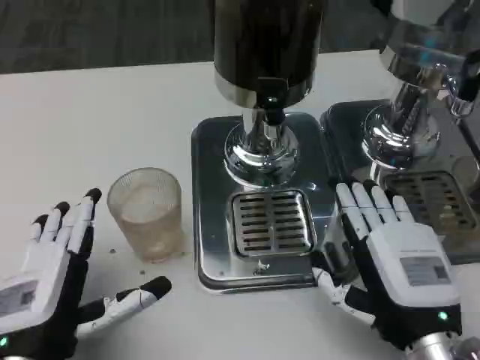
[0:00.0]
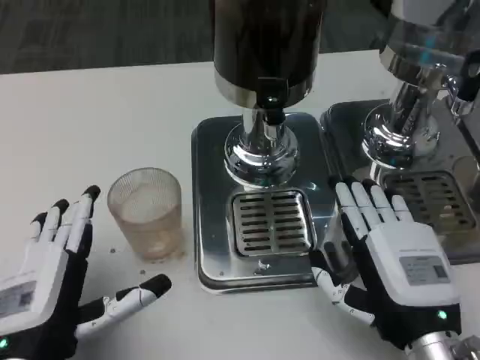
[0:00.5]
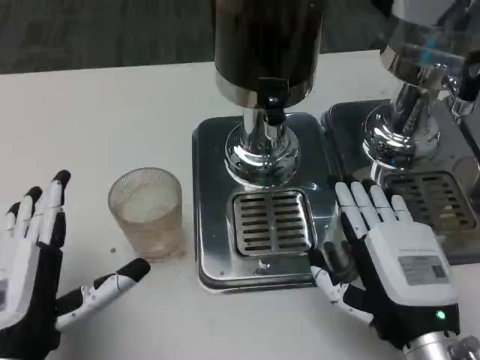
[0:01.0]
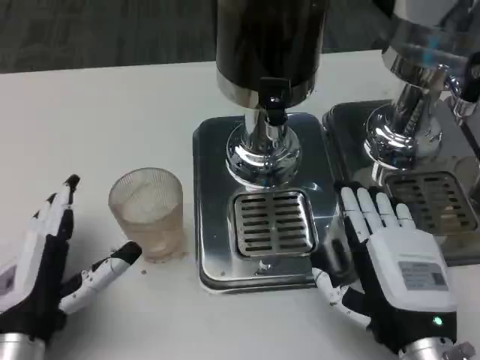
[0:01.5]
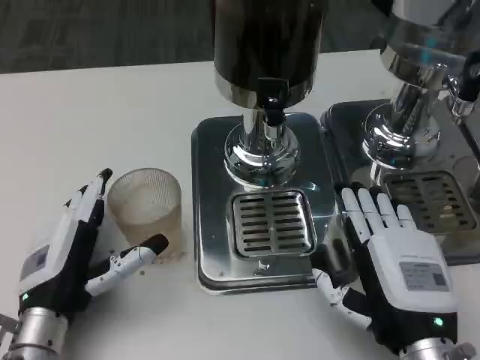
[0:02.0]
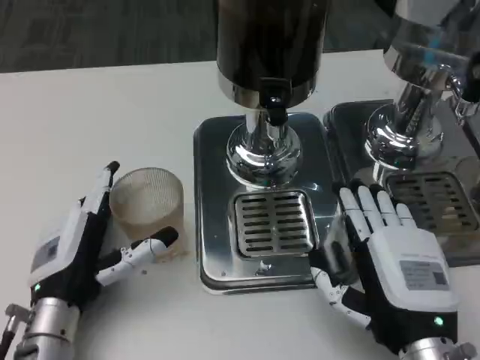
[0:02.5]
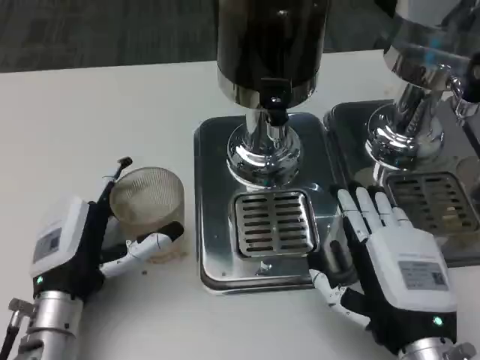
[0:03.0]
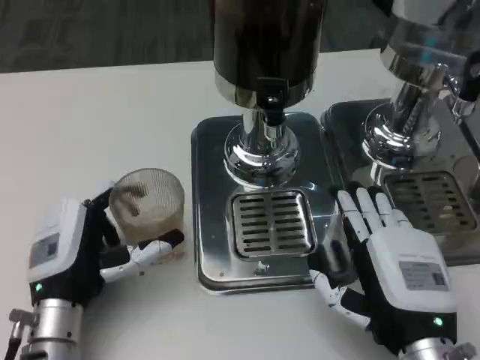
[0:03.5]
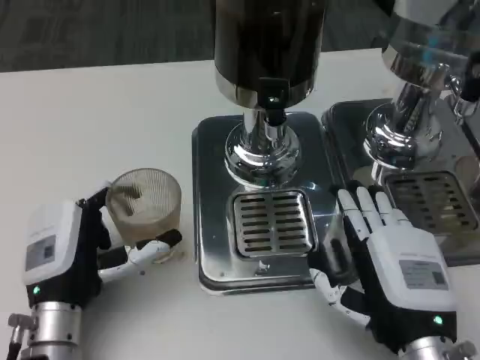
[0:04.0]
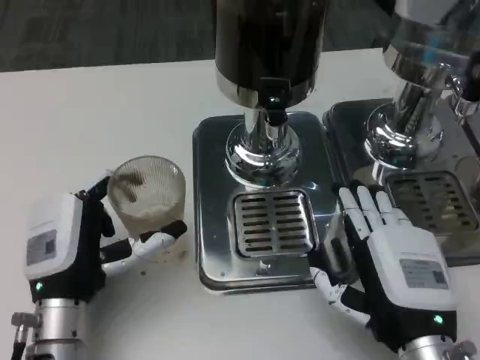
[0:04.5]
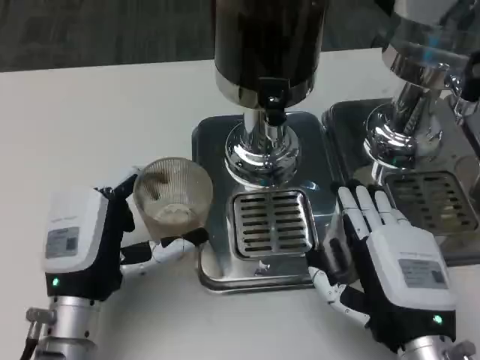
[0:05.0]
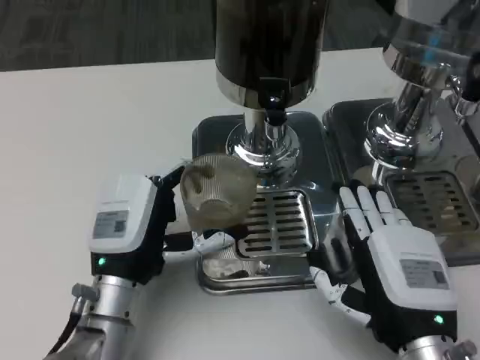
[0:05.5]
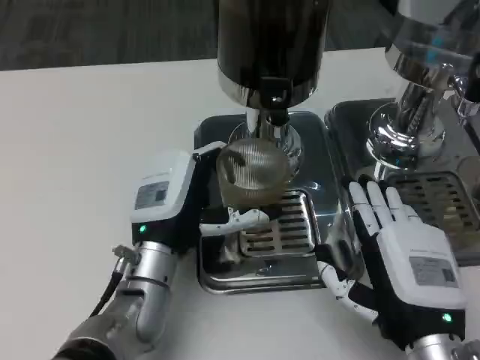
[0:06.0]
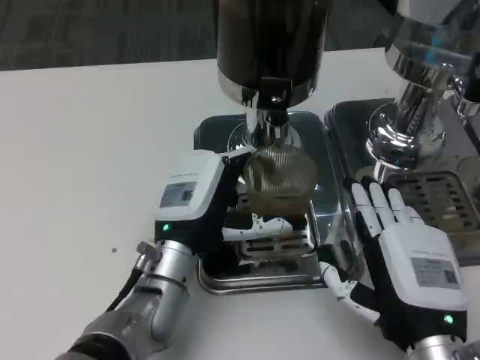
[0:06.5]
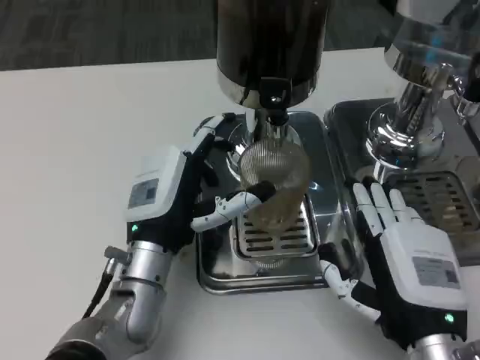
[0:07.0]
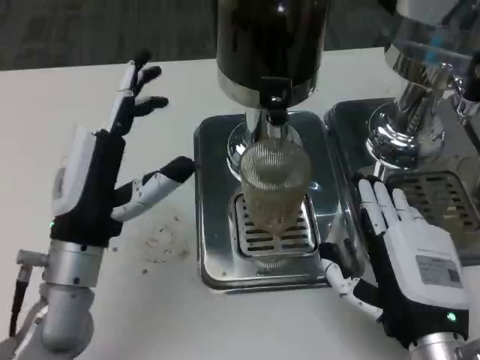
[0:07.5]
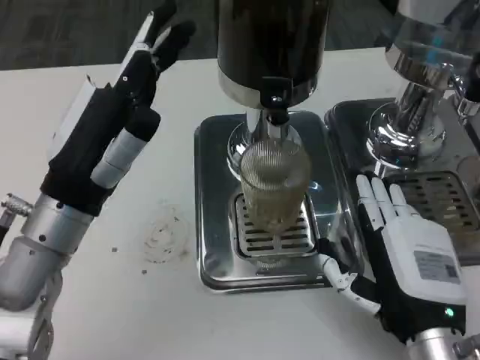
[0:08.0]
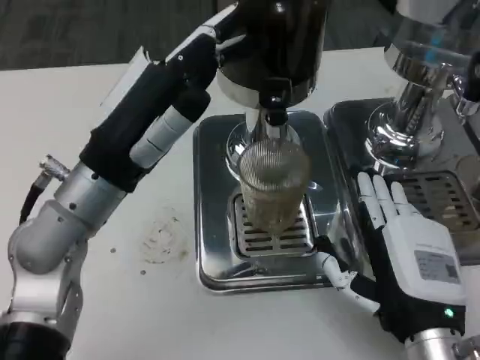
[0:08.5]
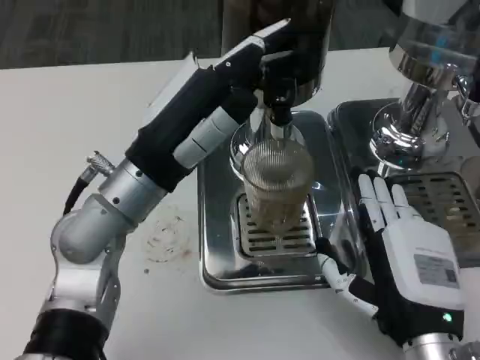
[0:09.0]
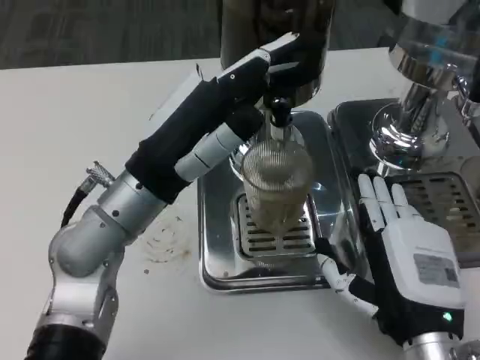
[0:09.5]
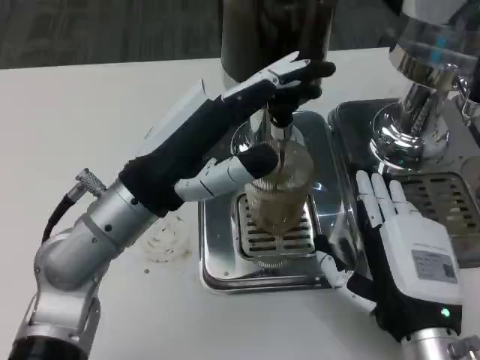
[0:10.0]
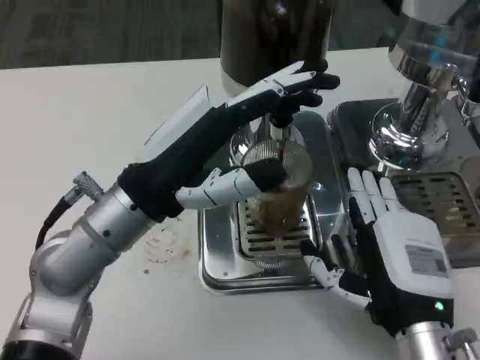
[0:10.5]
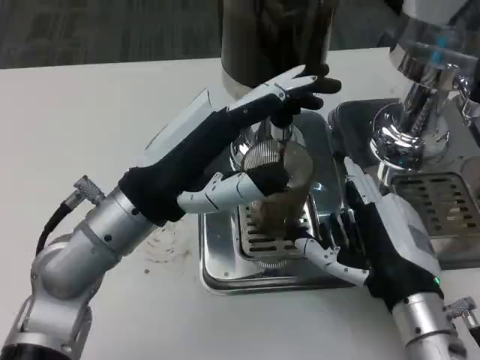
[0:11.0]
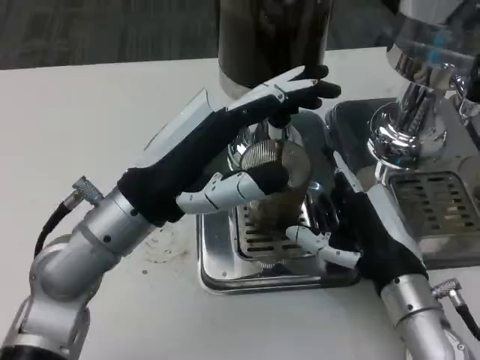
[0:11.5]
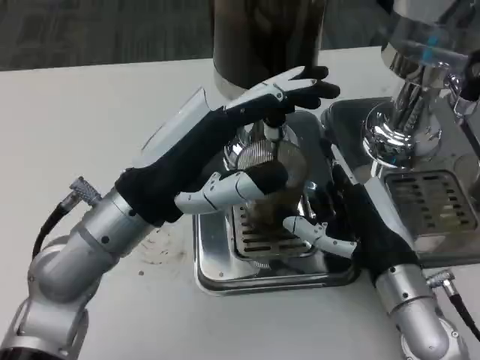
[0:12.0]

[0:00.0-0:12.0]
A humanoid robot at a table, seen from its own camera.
Task of the whole recording: Grasp the cup under the faucet to collect the drink, then remove the cup.
0:00.0 to 0:02.0: The left hand shifts about 5 cm forward.
0:02.0 to 0:04.0: There are only small adjustments of the hands.
0:04.0 to 0:06.0: The left hand shifts about 10 cm to the right and forward.
0:06.0 to 0:08.0: The left hand moves upward and to the left, about 15 cm.
0:10.0 to 0:12.0: The right hand heads forward, covering approximately 5 cm.

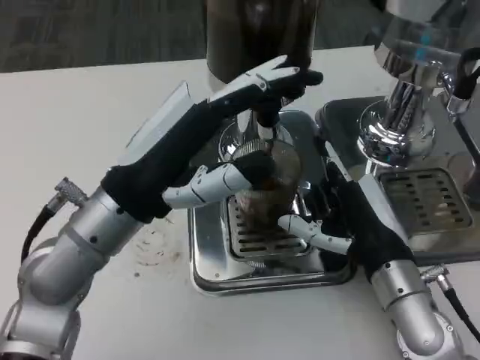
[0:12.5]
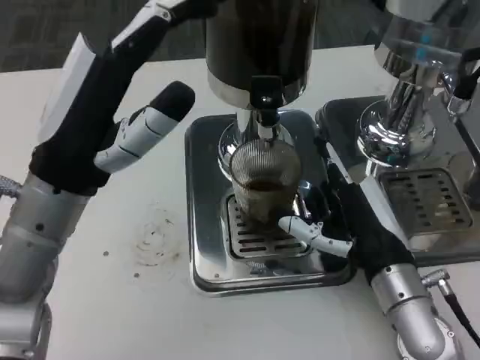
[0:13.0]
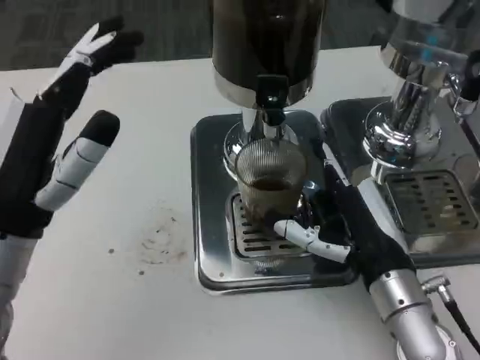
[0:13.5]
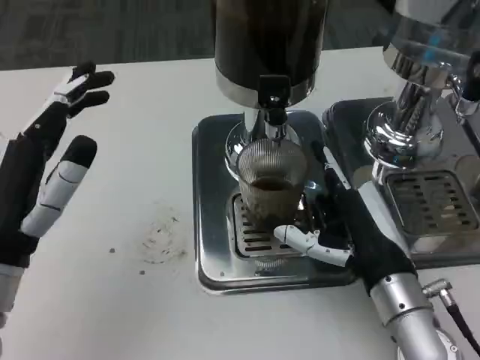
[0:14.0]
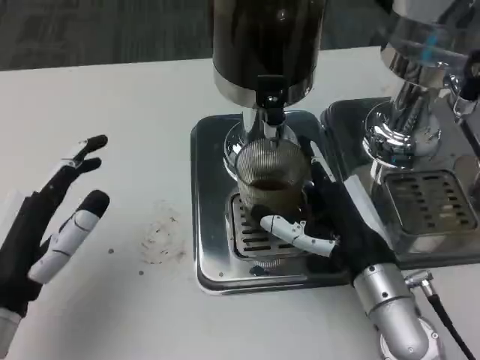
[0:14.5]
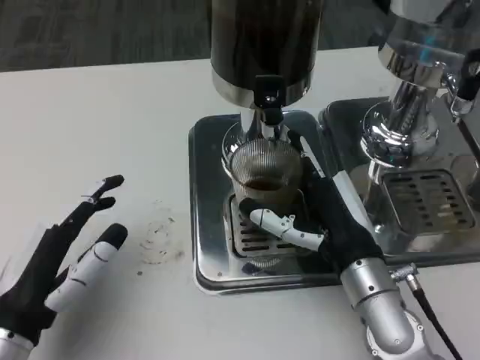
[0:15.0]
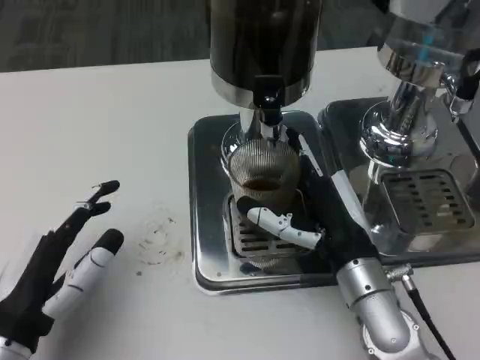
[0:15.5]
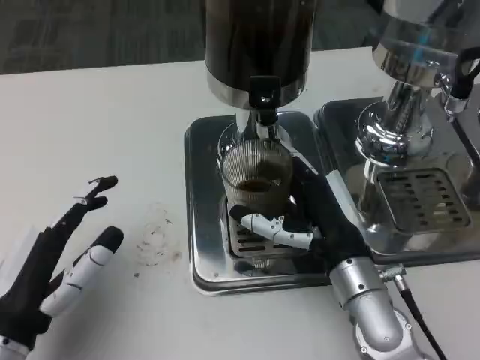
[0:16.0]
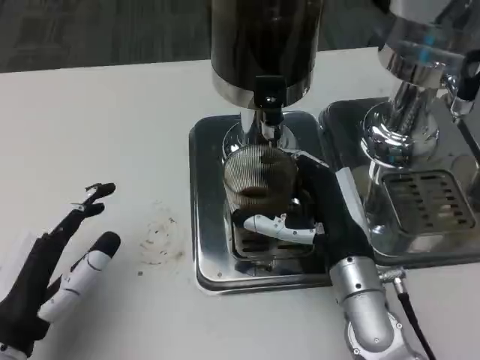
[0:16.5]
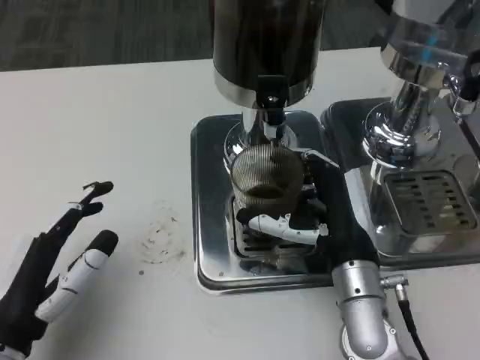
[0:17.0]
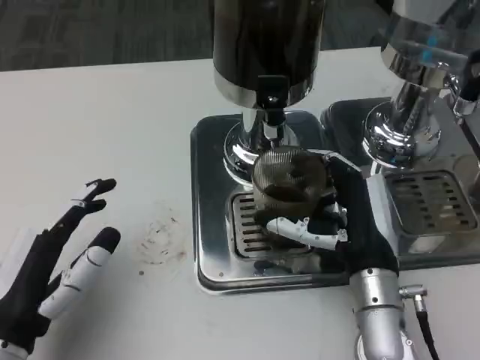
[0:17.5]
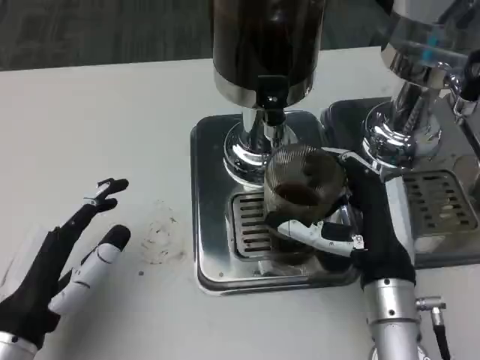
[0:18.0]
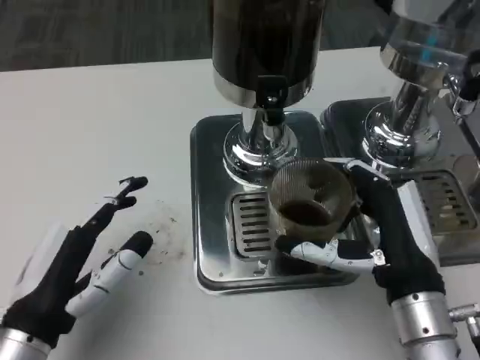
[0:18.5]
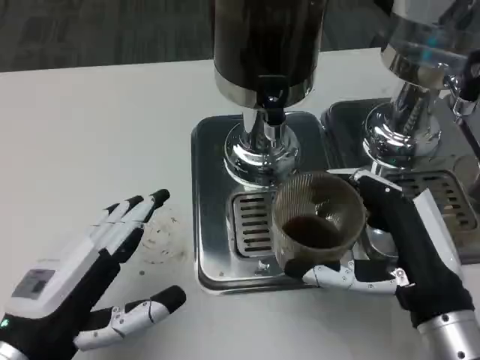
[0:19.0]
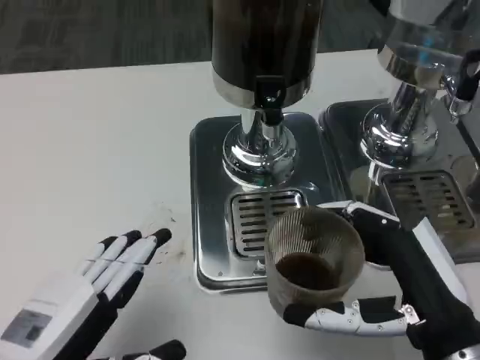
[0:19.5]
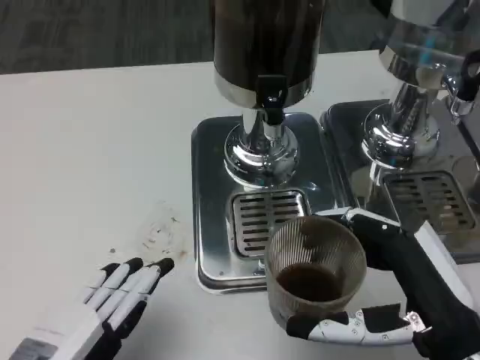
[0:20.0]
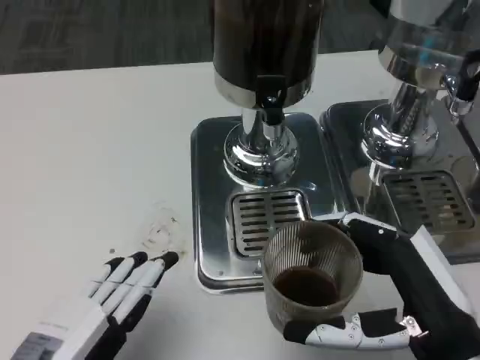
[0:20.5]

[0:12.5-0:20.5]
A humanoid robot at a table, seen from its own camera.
Task of the whole recording: Grasp the cup under the faucet to collect the drink, then remove the cup.
0:12.5 to 0:14.5: The left hand heads to the left, backward and downward, covering roughly 15 cm.
0:16.5 to 0:18.5: The right hand moves backward, approximately 5 cm.
0:18.5 to 0:20.5: Both hands move backward, approximately 5 cm.

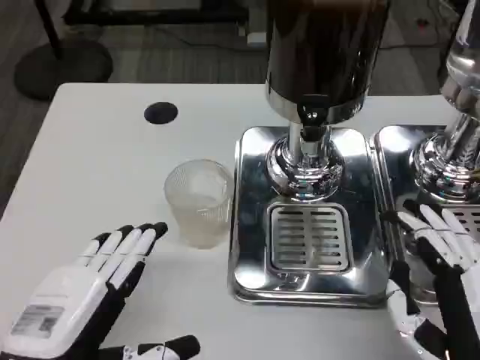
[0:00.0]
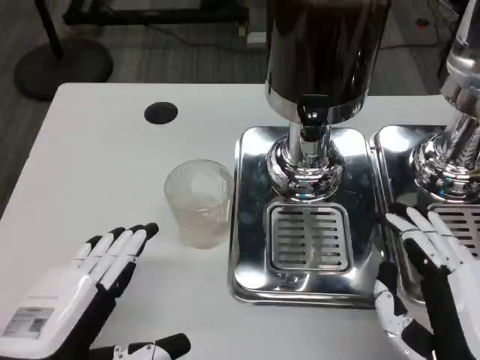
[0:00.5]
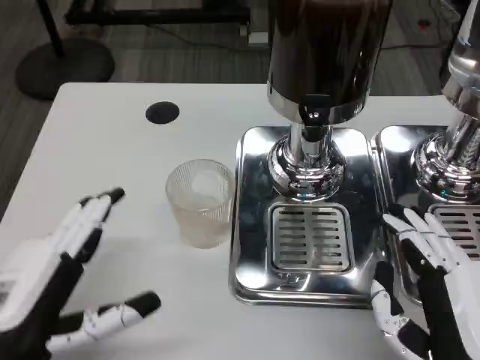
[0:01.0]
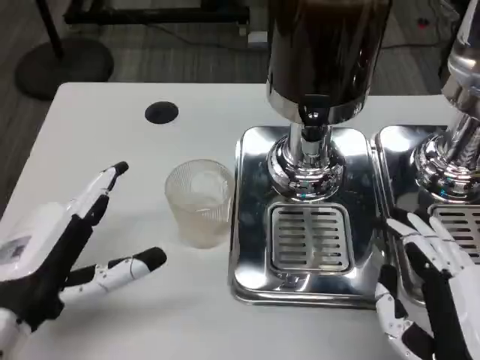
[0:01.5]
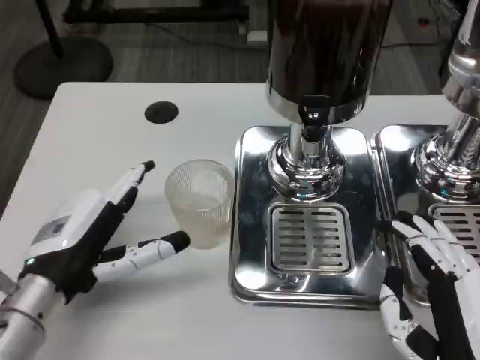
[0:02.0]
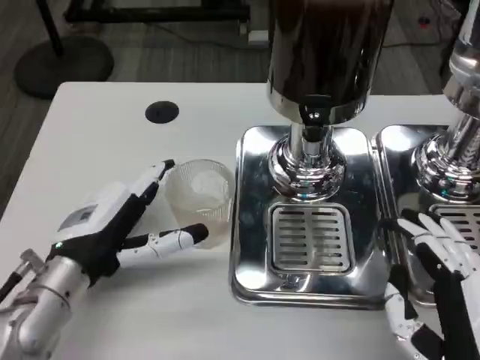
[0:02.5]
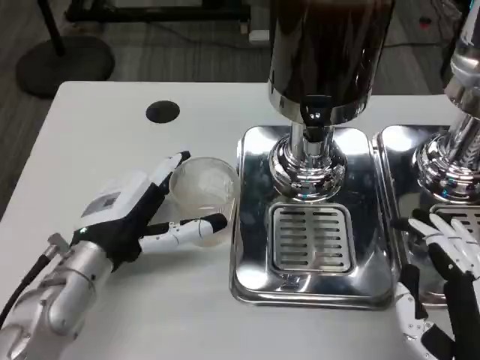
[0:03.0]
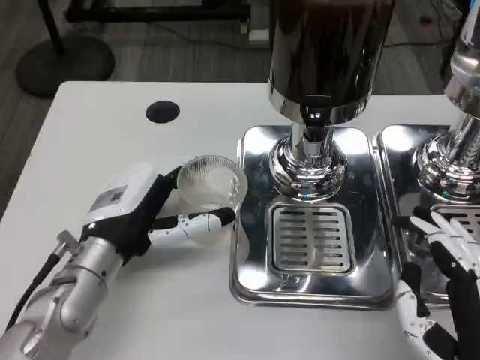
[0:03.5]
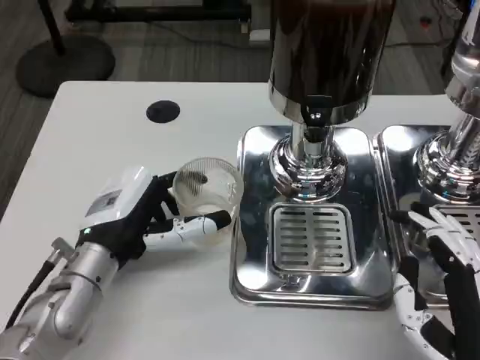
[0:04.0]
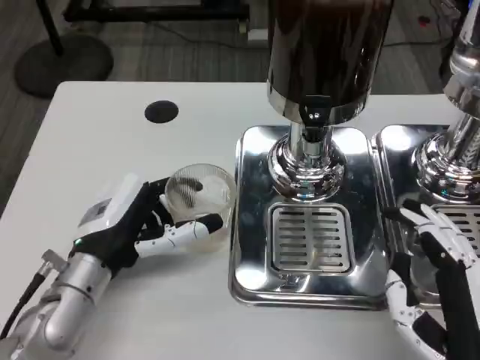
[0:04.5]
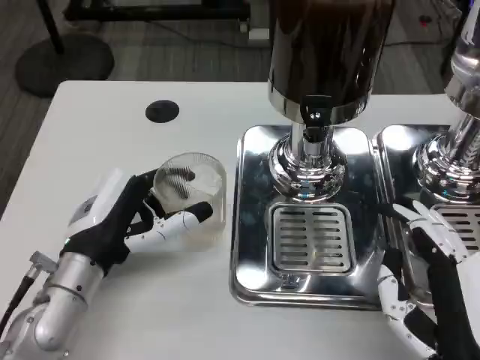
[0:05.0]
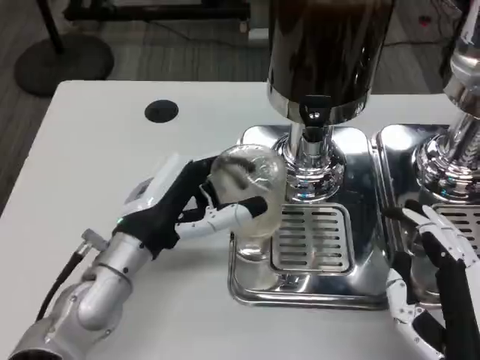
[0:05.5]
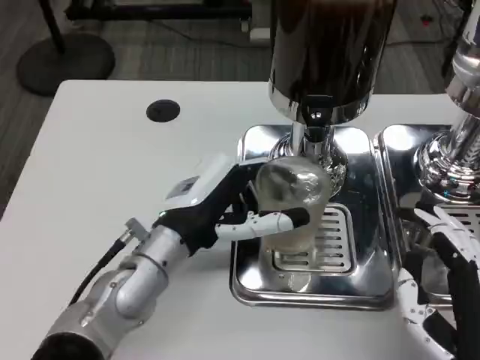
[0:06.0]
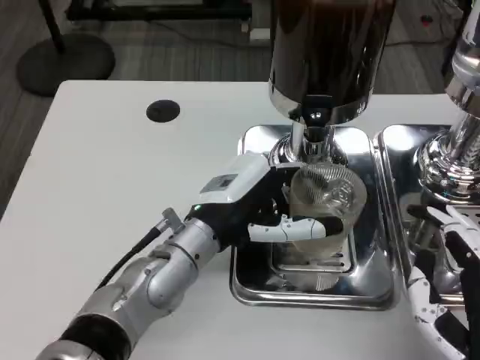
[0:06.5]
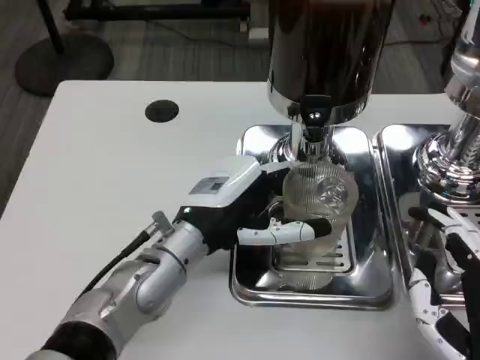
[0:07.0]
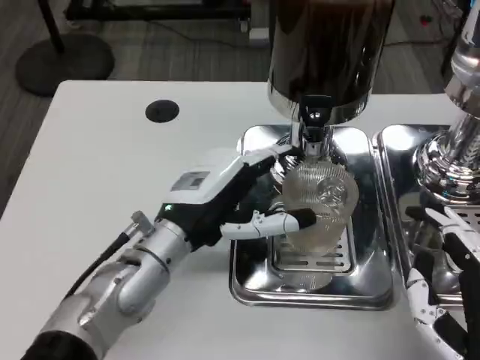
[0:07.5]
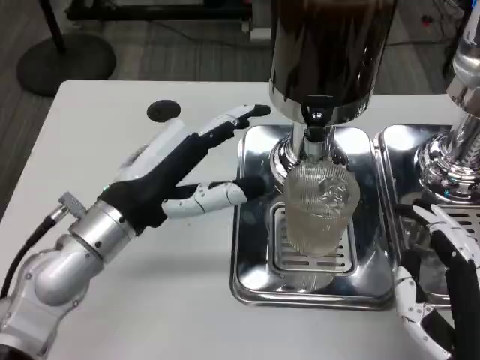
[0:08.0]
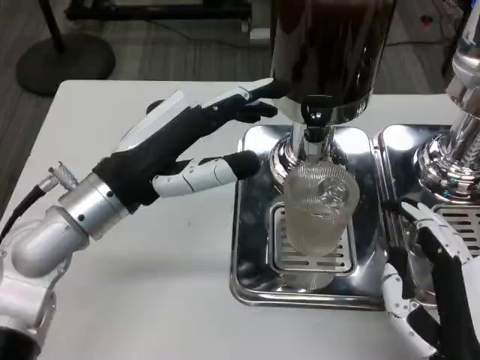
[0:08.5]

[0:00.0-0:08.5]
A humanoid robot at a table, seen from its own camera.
Task of the whole recording: Grasp the cup under the faucet to collect the drink, then remove the cup.
0:00.0 to 0:02.0: The left hand moves forward, about 10 cm.
0:02.0 to 0:04.0: The left hand moves about 5 cm.
0:04.0 to 0:06.5: The left hand moves to the right, some 10 cm.
0:06.5 to 0:08.5: The left hand heads to the left and upward, covering about 10 cm.
